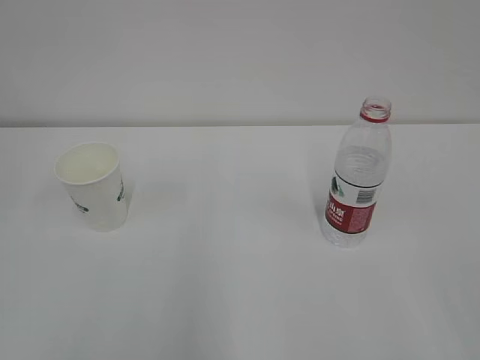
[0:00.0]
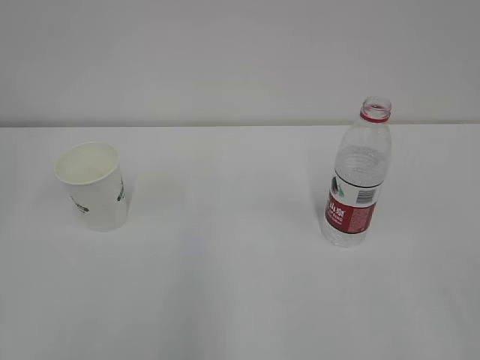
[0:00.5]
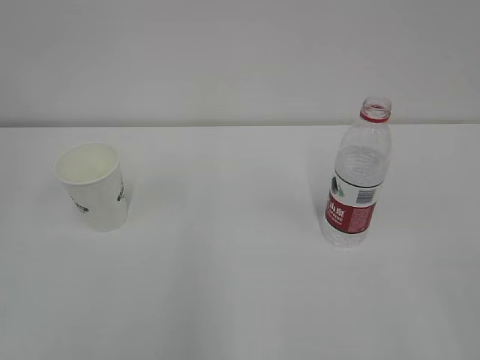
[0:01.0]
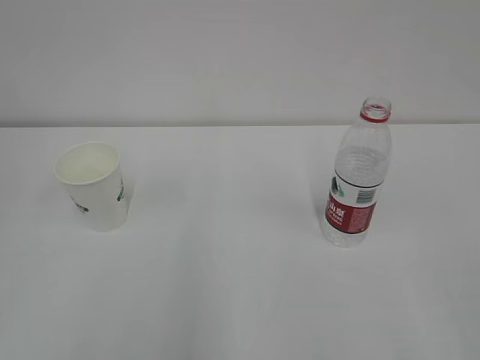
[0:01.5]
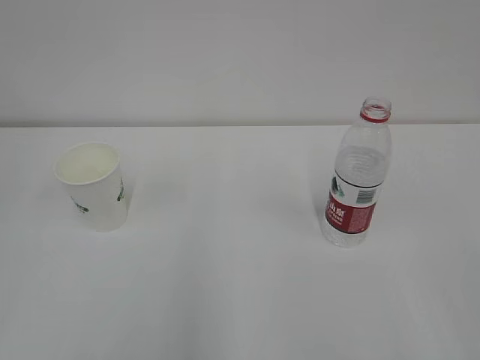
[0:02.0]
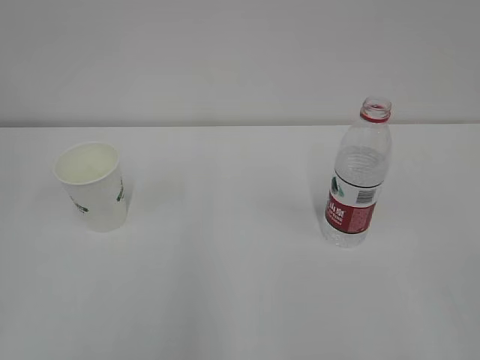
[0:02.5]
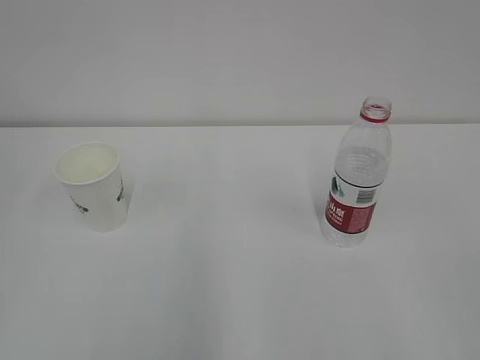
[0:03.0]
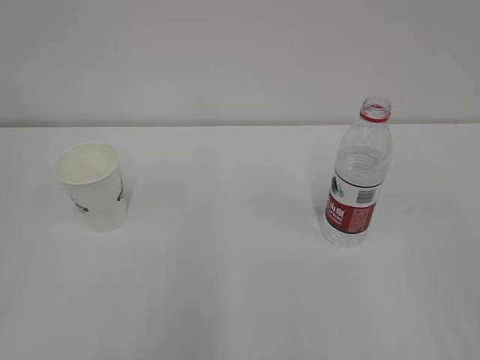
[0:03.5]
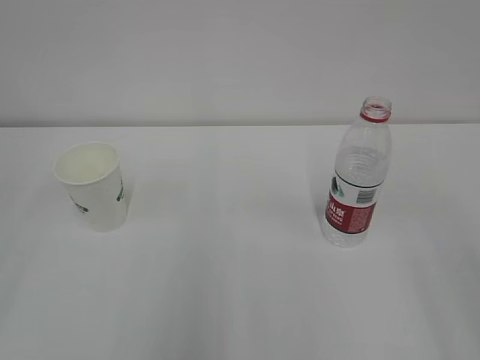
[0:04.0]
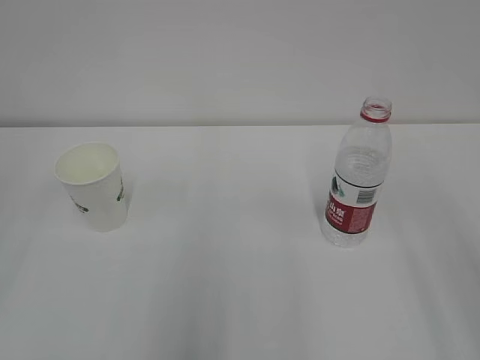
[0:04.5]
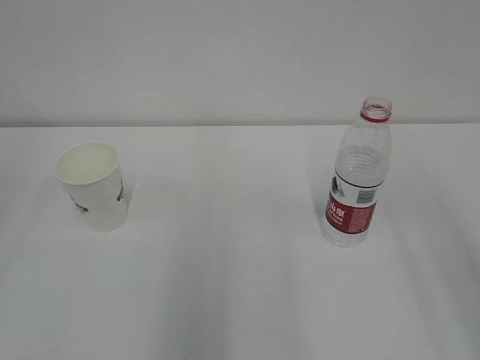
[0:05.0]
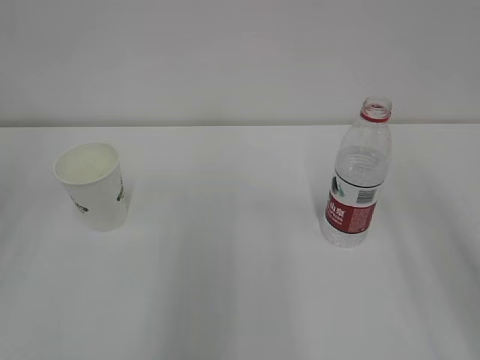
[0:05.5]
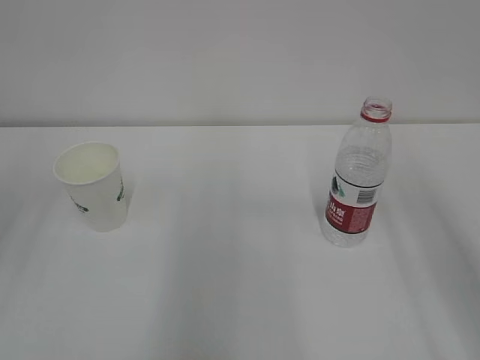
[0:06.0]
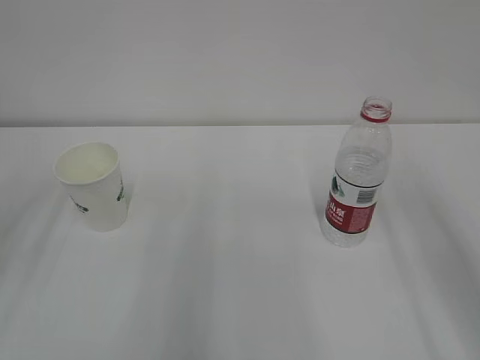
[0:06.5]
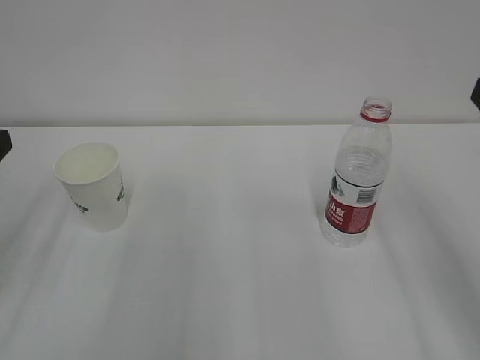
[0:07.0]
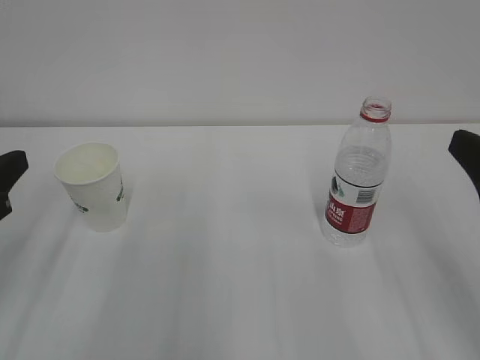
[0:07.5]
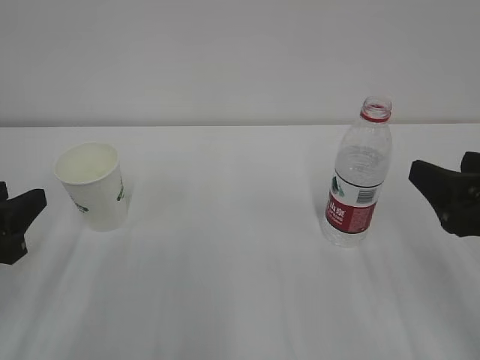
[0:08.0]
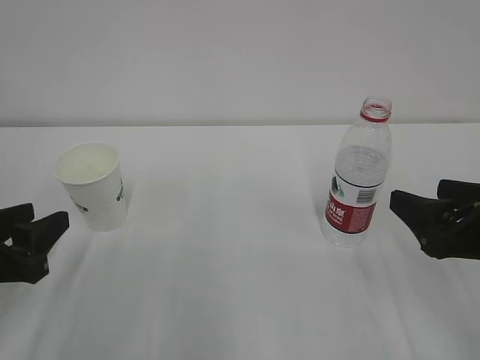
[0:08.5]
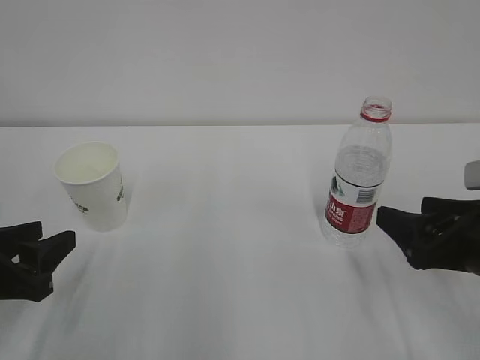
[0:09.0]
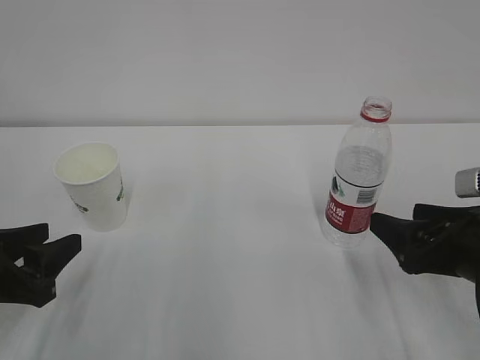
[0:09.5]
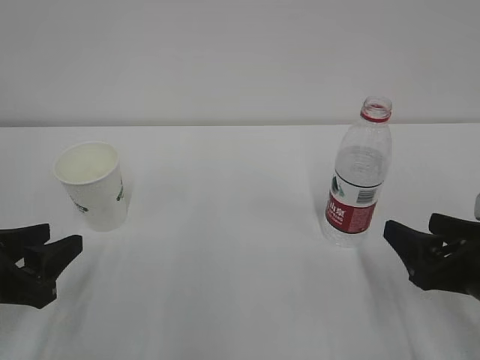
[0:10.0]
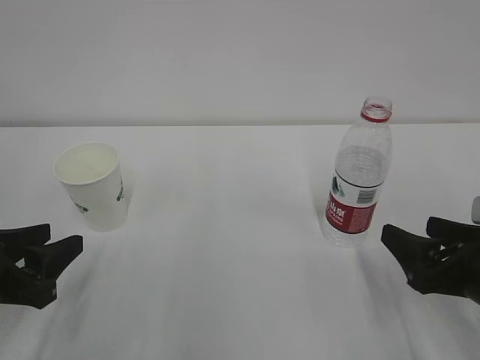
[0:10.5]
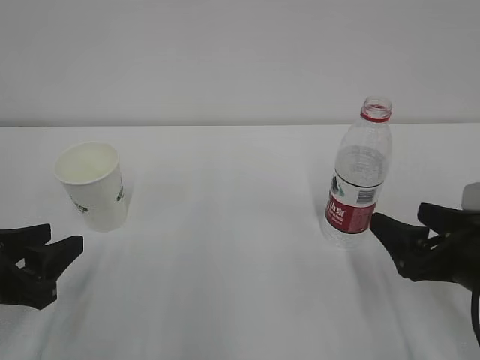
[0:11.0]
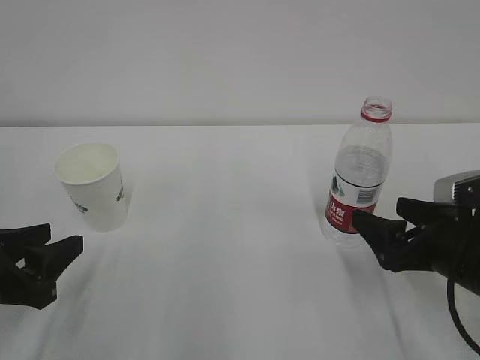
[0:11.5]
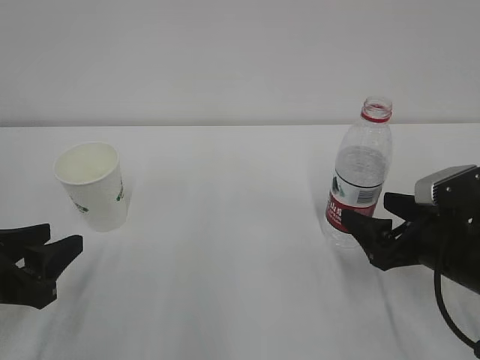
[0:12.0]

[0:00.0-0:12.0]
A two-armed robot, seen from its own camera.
6.0 to 8.0 s: Both grippers travel together downward, about 15 cm.
8.0 to 10.0 s: The right gripper is displaced downward by roughly 10 cm.
10.0 to 12.0 s: The right gripper changes place by approximately 5 cm, and opens its fingers.

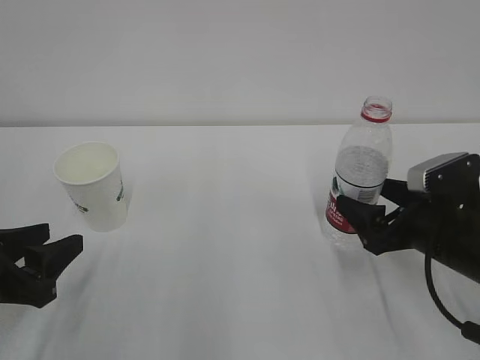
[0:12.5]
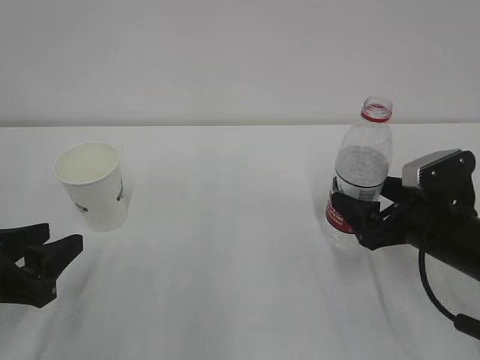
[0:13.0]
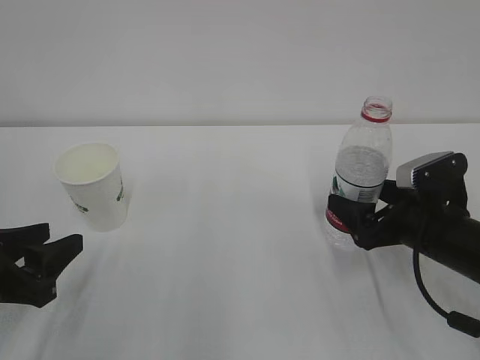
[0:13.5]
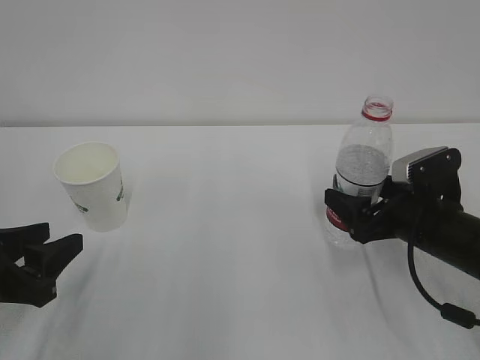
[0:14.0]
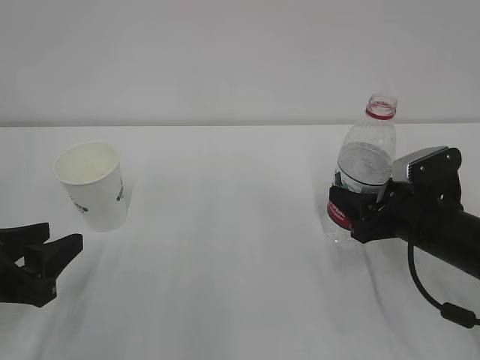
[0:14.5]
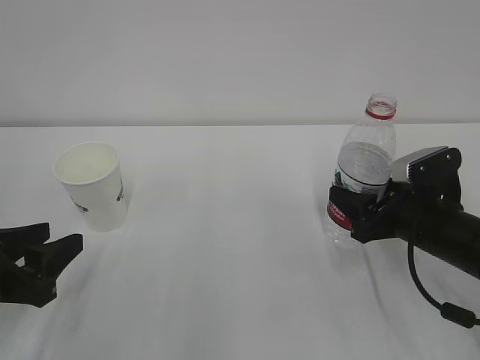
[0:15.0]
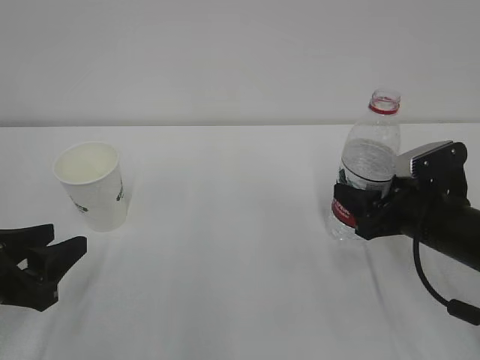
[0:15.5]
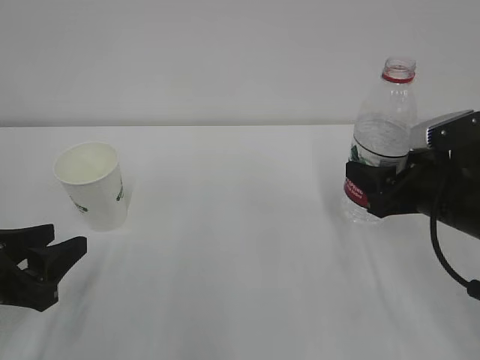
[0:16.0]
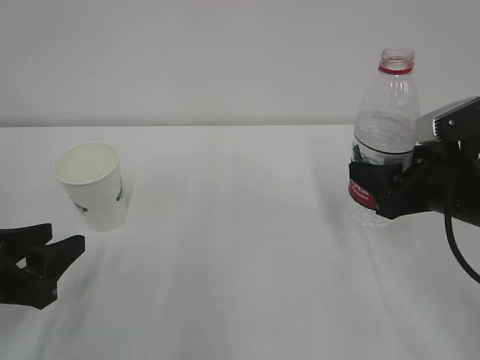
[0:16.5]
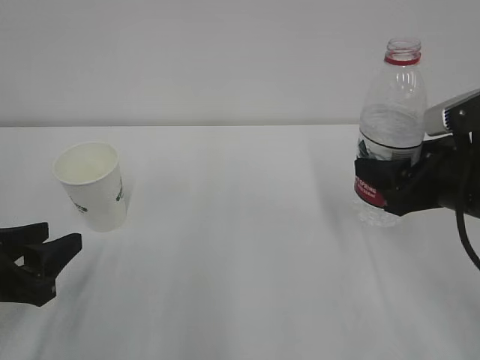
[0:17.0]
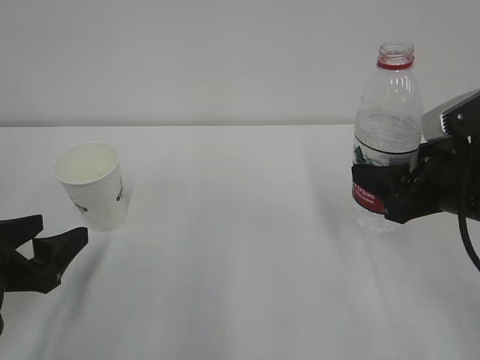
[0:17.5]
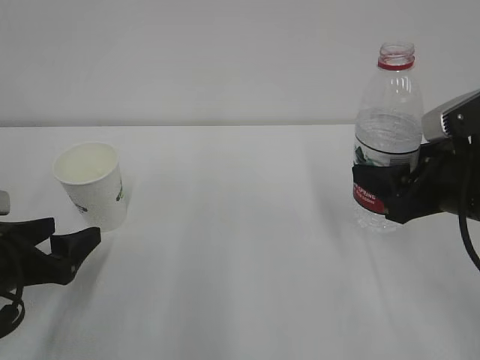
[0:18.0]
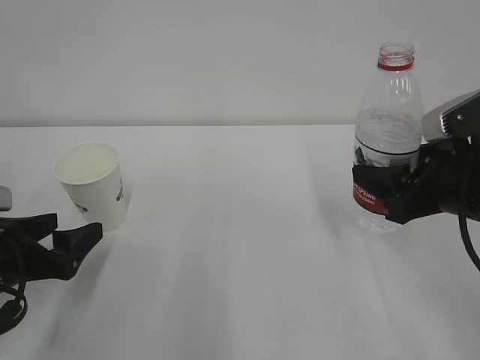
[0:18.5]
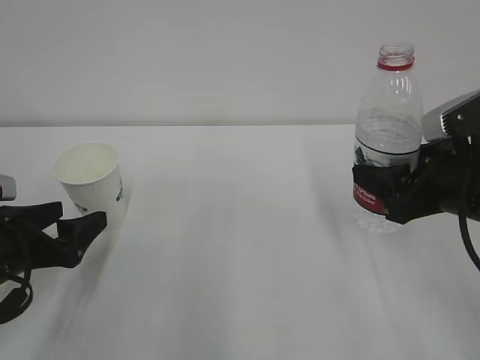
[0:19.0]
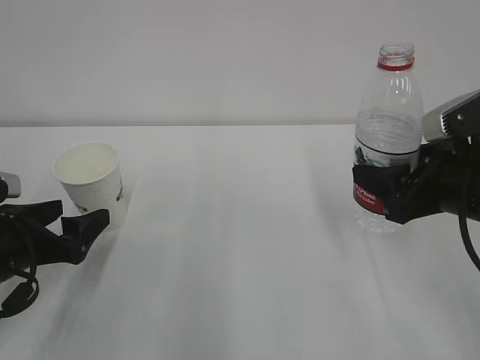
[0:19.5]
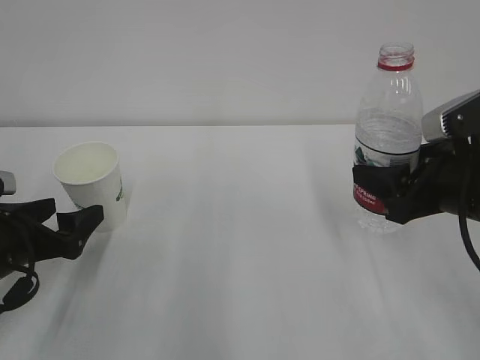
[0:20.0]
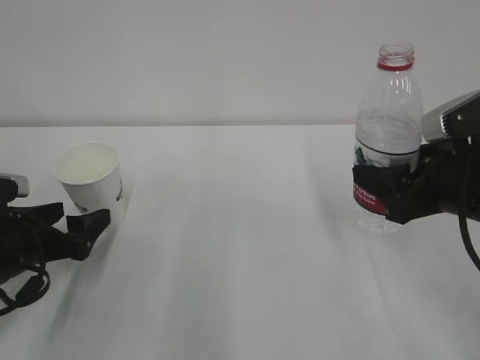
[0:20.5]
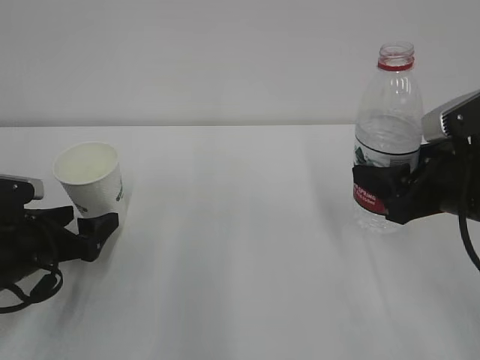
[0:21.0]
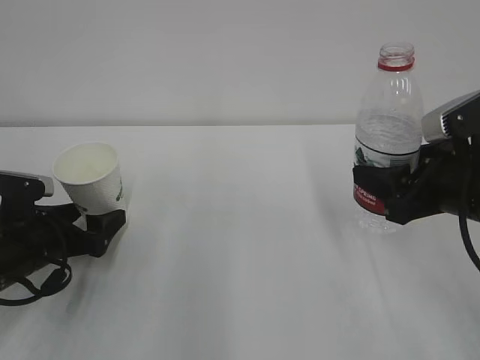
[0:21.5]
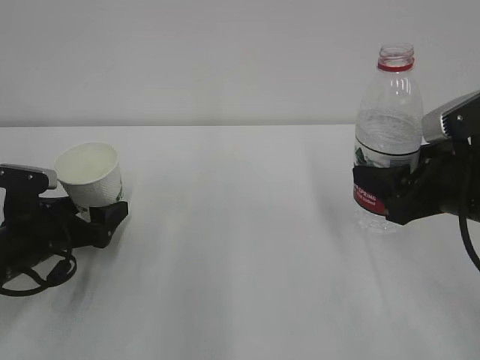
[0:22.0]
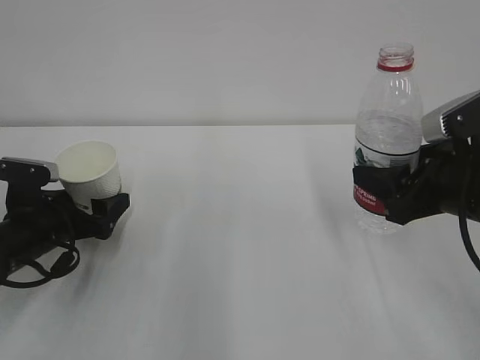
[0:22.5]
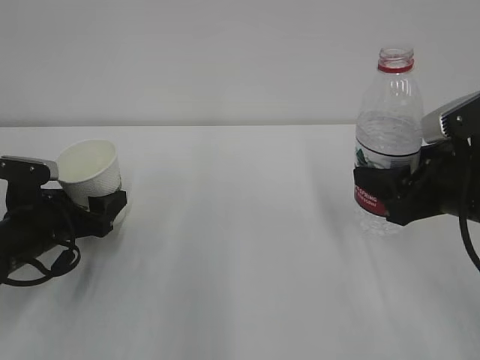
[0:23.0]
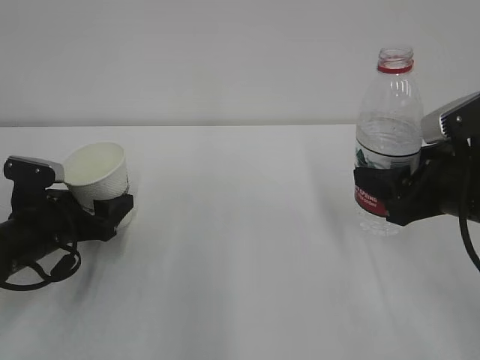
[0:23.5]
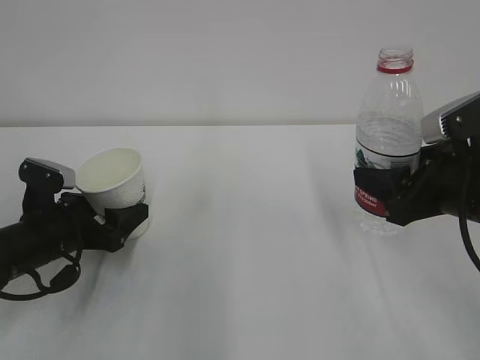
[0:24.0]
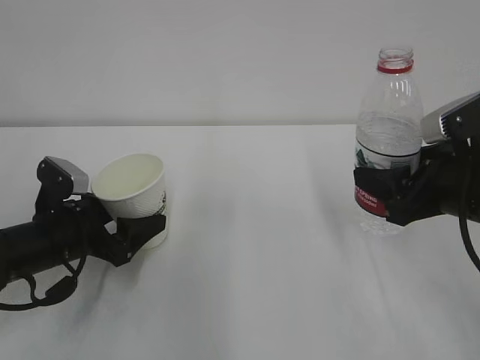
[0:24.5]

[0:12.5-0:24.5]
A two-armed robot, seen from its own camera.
12.5 to 14.5 s: The right gripper closes.
14.5 to 16.5 s: The right gripper goes approximately 10 cm upward.
16.5 to 18.5 s: The left gripper opens.
18.5 to 20.5 s: The grippers make only small movements.
20.5 to 22.5 s: The left gripper ends up some 5 cm from where it was.

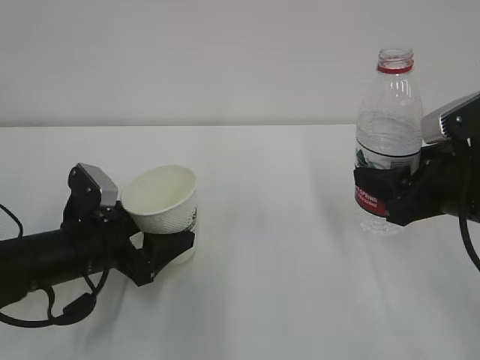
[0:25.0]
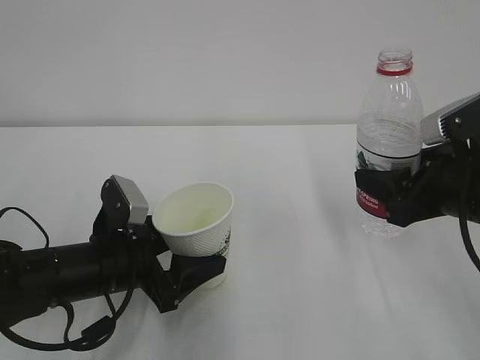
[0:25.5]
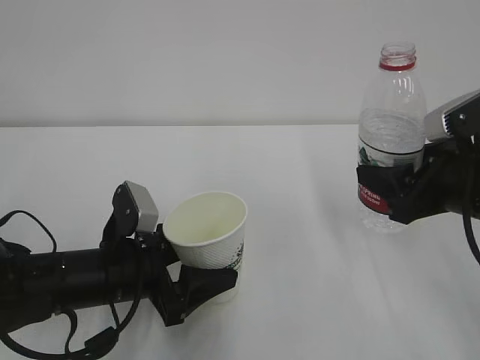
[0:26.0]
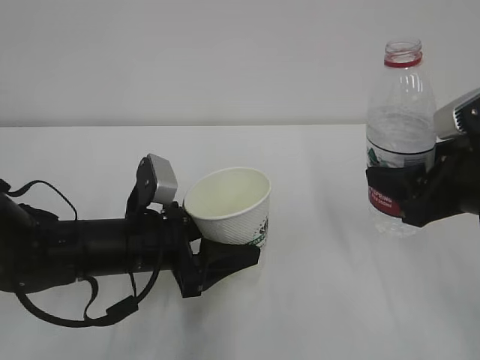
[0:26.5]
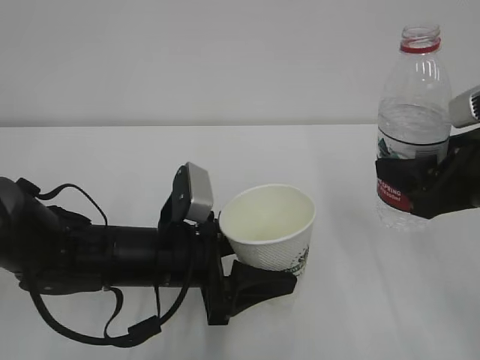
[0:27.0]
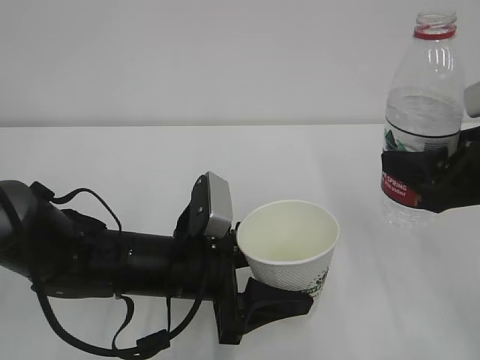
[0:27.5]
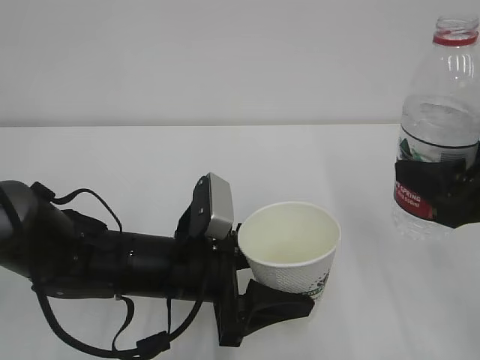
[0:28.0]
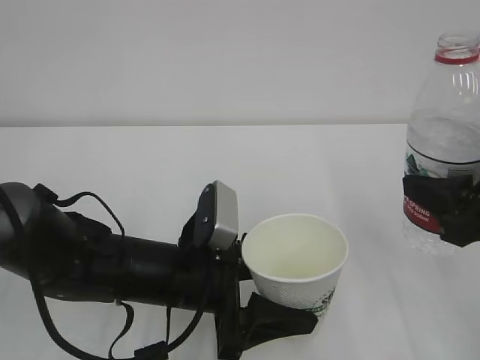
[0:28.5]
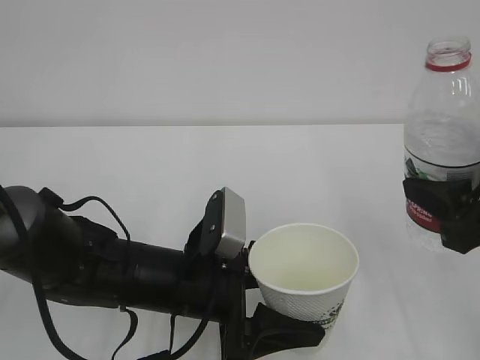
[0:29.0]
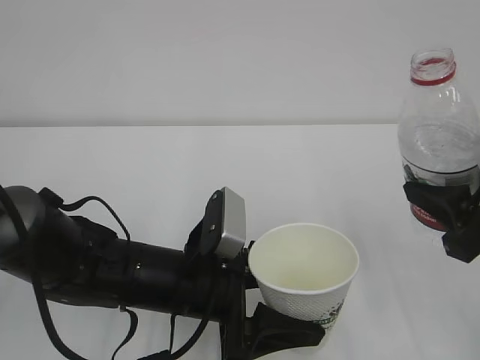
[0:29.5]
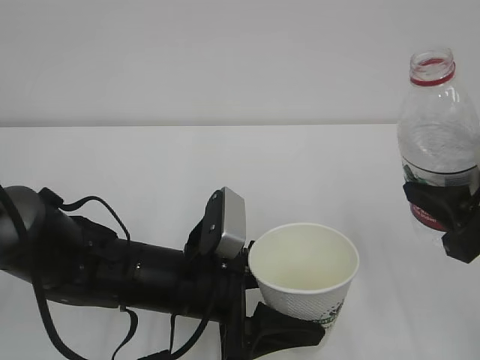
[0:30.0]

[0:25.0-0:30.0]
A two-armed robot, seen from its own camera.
25.0 to 27.5 s: The right gripper changes place by about 5 cm. Meanwhile the left gripper heads to the right, covering roughly 10 cm.
27.5 to 30.0 s: The grippers make only small movements.
